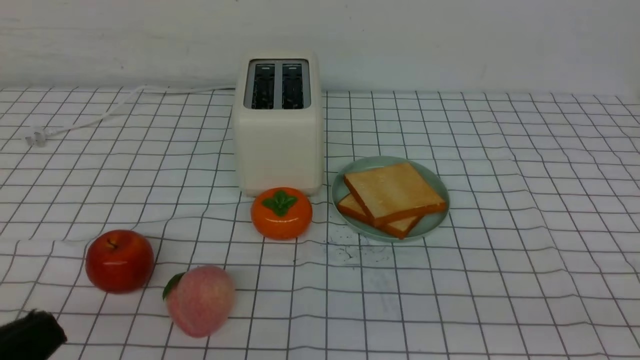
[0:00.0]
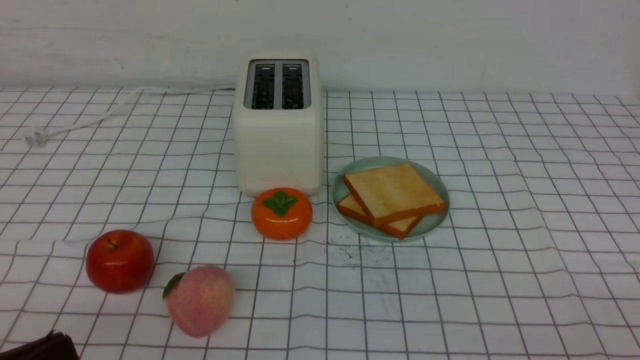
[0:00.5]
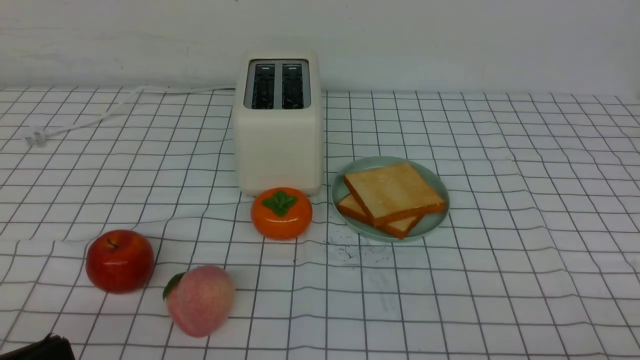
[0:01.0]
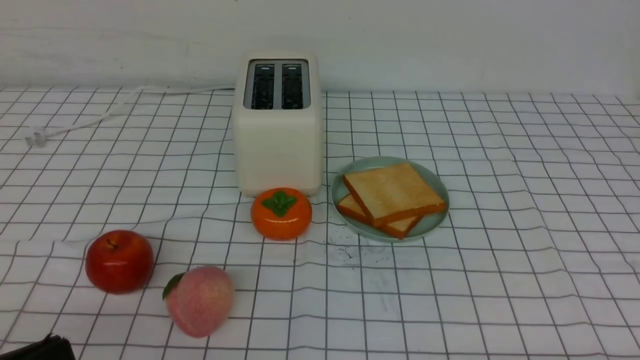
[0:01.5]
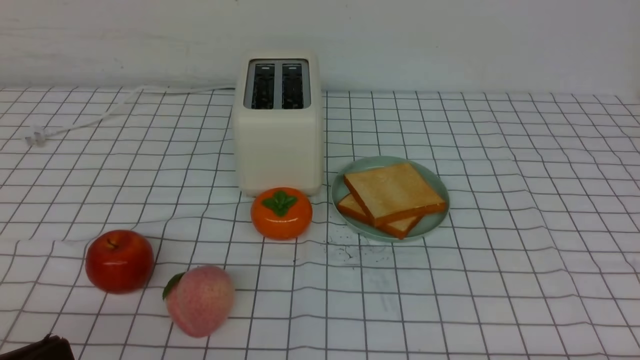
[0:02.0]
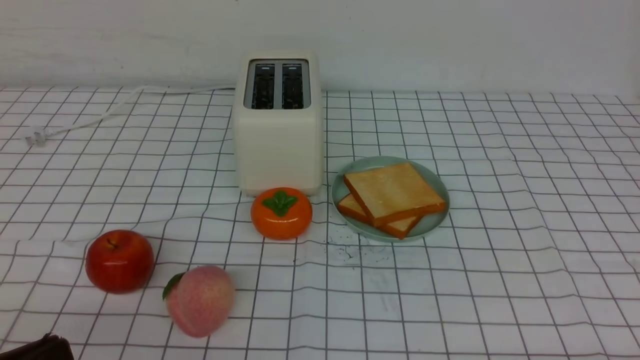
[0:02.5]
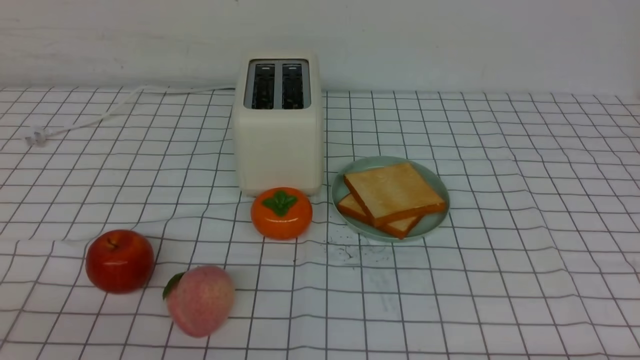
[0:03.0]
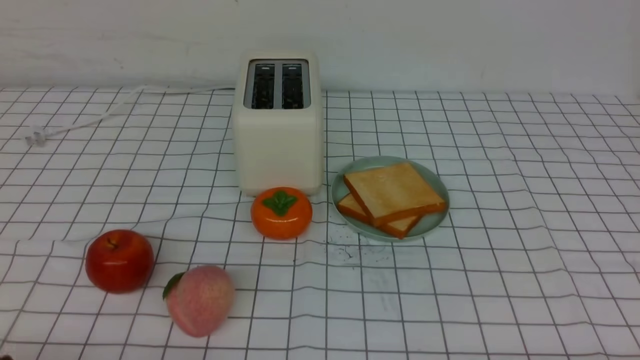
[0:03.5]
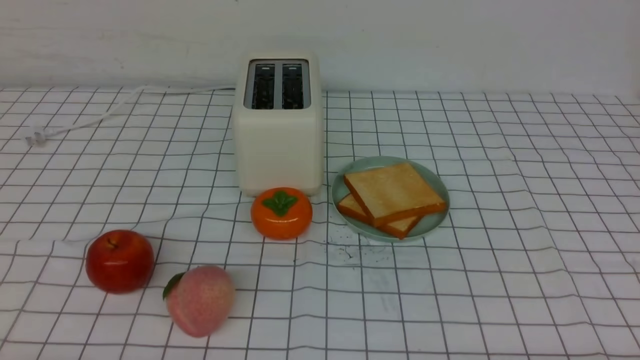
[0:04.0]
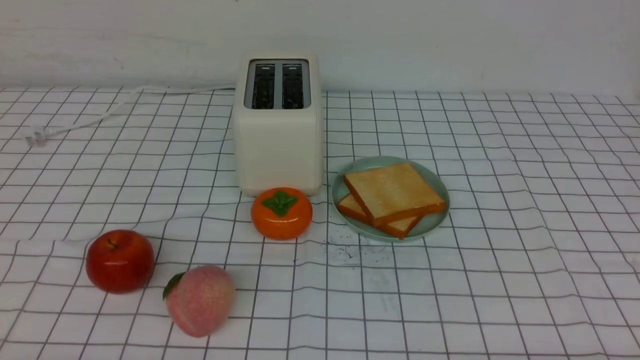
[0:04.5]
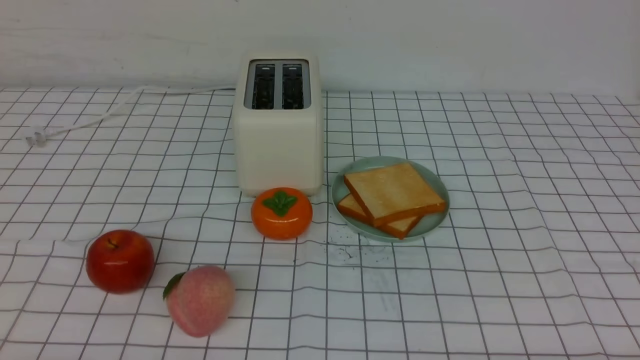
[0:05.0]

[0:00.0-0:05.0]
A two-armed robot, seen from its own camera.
Task of the whole recording: take toasted bread from bread machine on white checkered table place on plate.
0:02.5 to 0:05.0: The left gripper goes roughly 10 cm downward.
